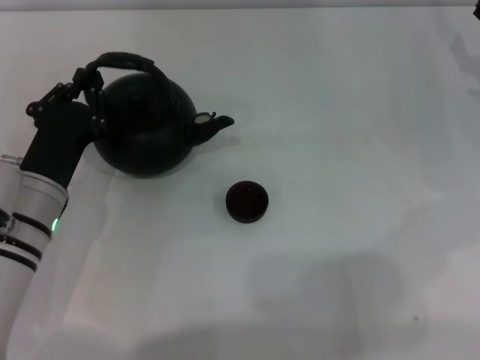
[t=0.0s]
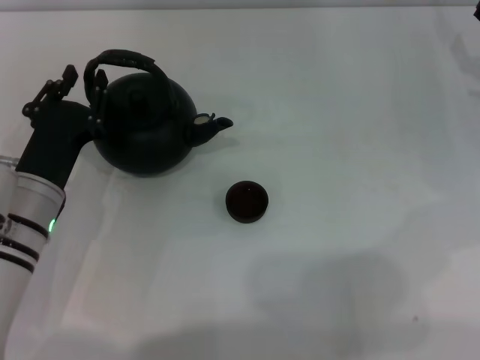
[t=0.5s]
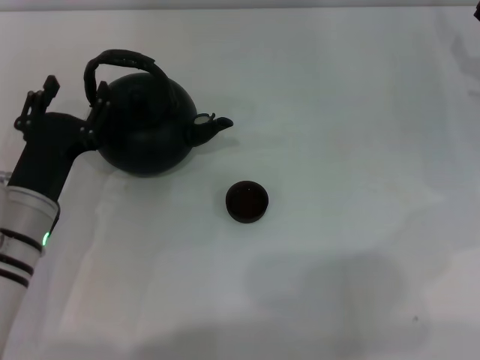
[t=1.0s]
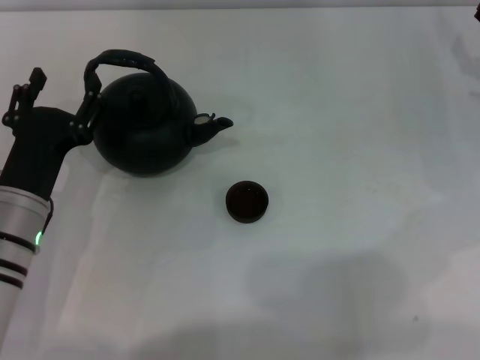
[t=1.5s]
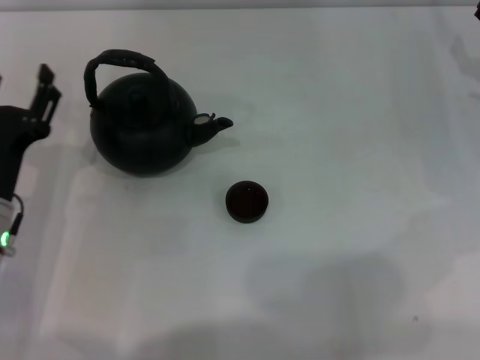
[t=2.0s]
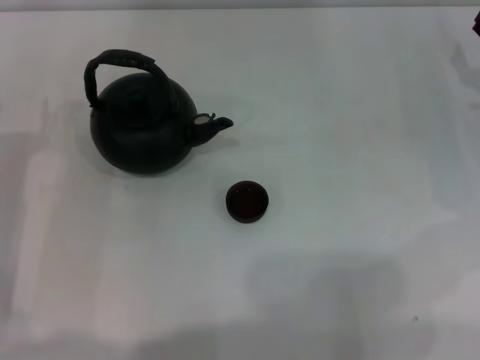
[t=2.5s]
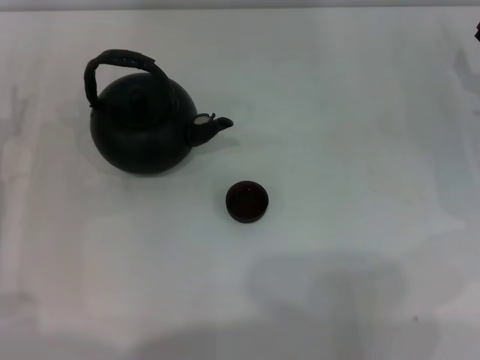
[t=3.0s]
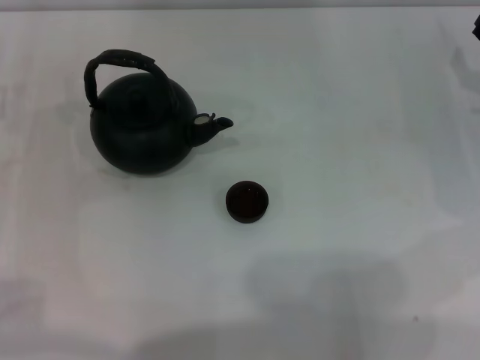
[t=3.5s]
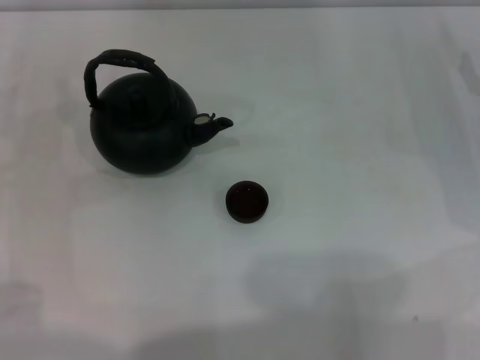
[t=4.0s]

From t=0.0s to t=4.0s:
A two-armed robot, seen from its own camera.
Task of the whole recording: Grasp the handle of the teapot with one hand and pour tea into the teacup.
From t=0.0s to t=2.0s: The left gripper opens.
From t=2.0s to t=4.0s: The left gripper is displaced to the left and forward by approximately 10 cm.
